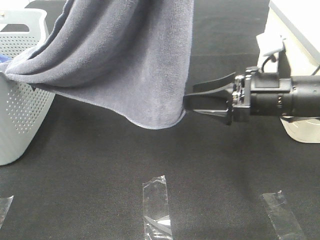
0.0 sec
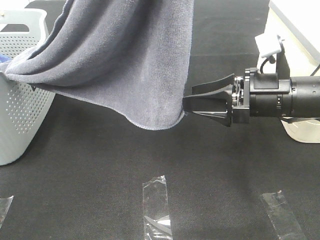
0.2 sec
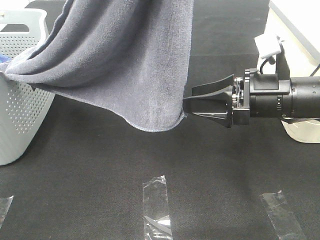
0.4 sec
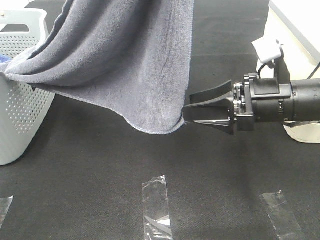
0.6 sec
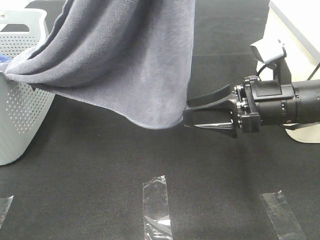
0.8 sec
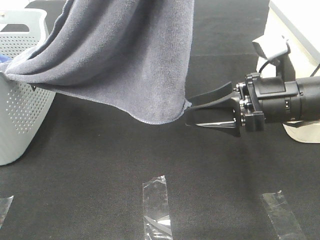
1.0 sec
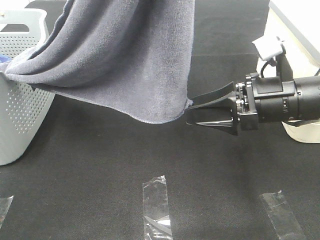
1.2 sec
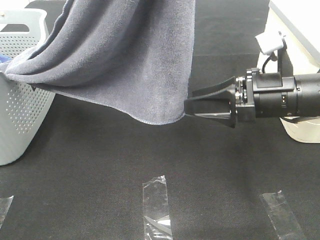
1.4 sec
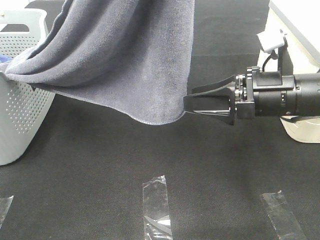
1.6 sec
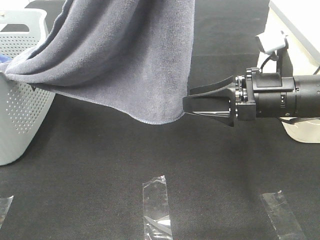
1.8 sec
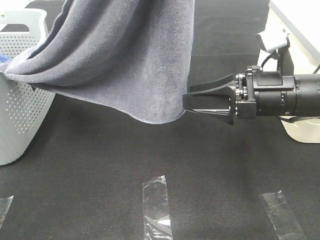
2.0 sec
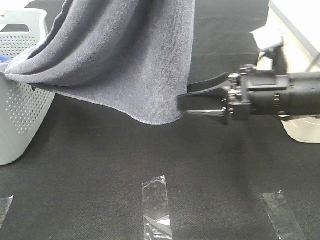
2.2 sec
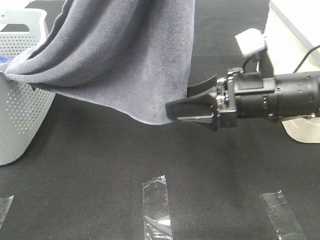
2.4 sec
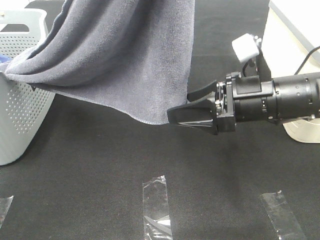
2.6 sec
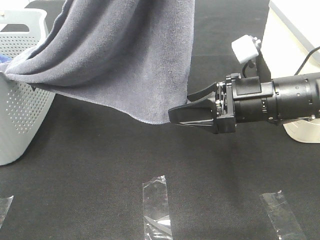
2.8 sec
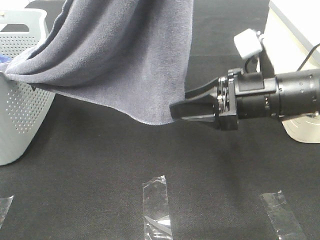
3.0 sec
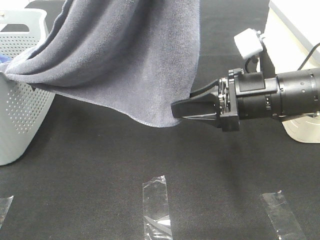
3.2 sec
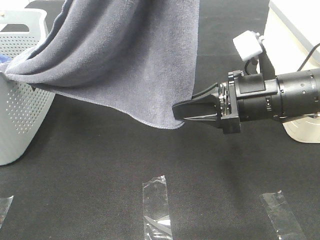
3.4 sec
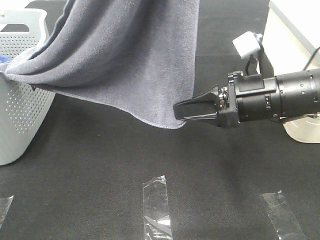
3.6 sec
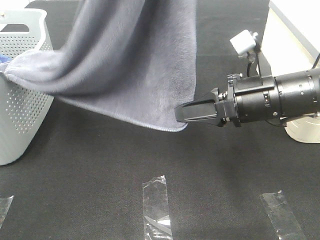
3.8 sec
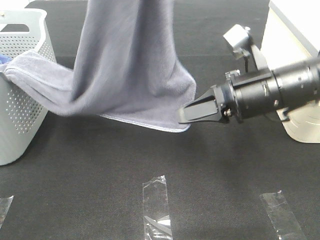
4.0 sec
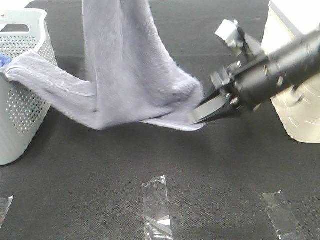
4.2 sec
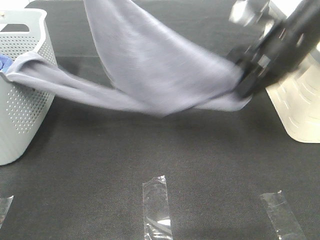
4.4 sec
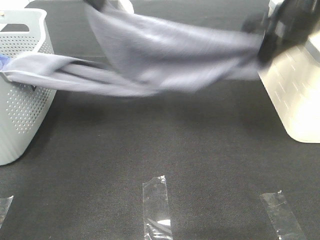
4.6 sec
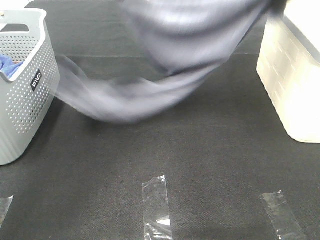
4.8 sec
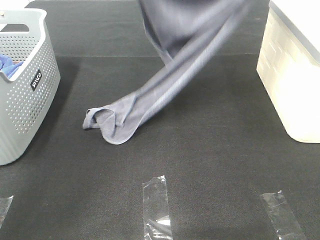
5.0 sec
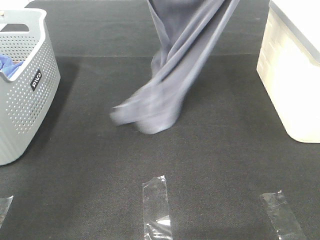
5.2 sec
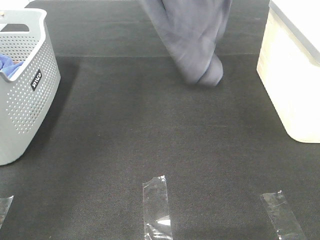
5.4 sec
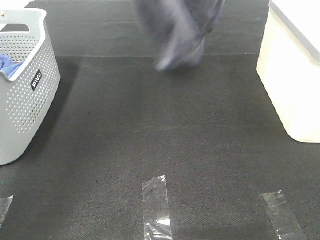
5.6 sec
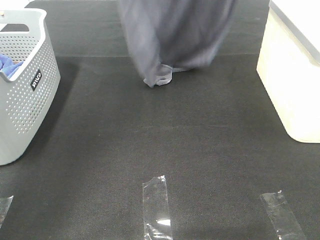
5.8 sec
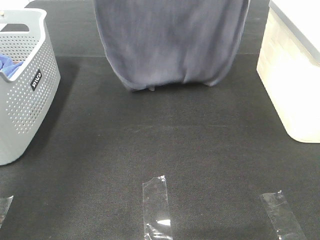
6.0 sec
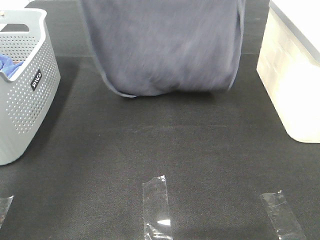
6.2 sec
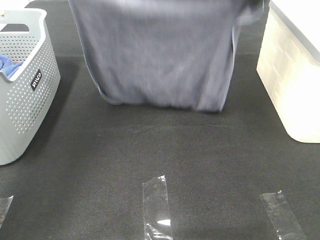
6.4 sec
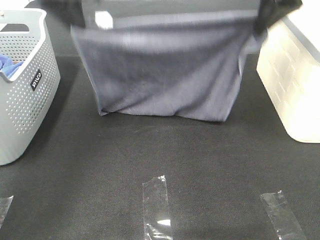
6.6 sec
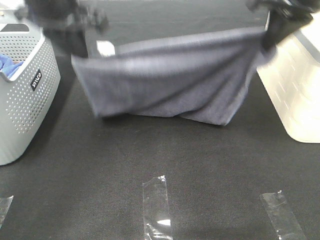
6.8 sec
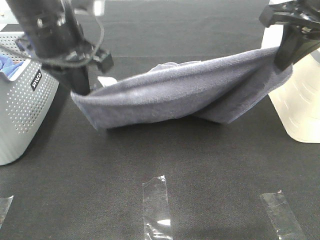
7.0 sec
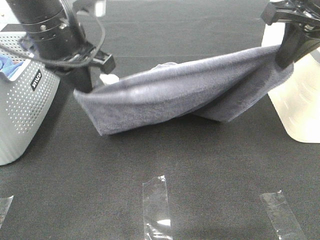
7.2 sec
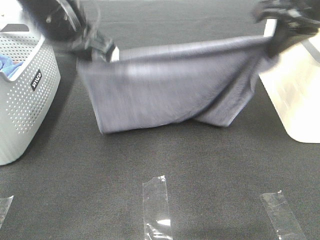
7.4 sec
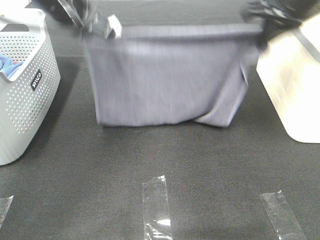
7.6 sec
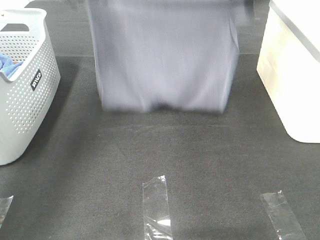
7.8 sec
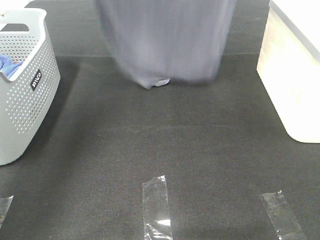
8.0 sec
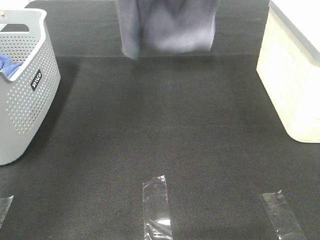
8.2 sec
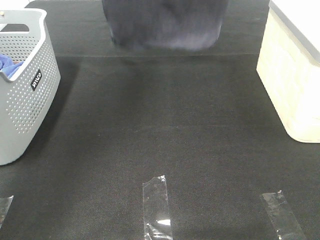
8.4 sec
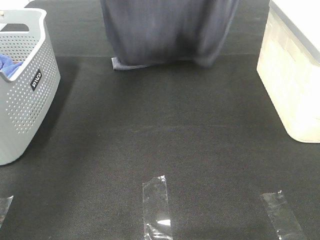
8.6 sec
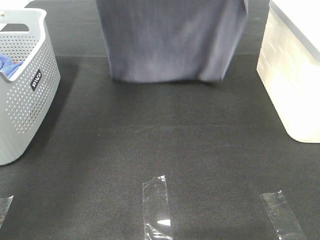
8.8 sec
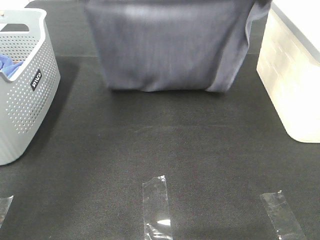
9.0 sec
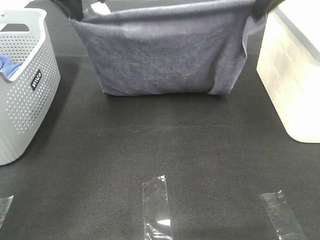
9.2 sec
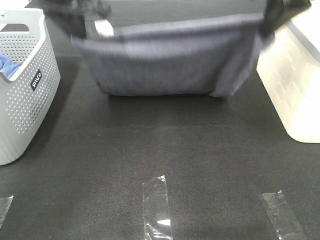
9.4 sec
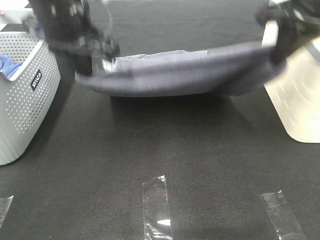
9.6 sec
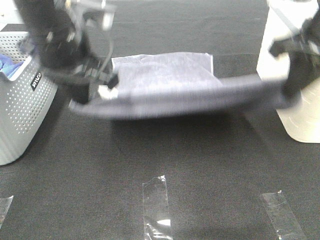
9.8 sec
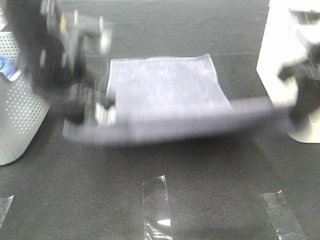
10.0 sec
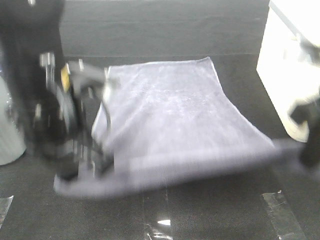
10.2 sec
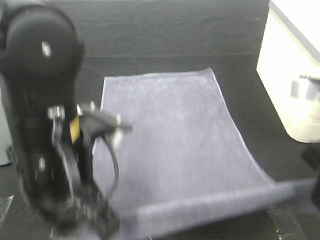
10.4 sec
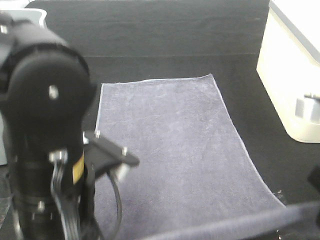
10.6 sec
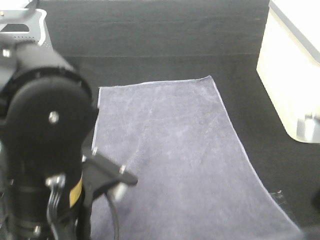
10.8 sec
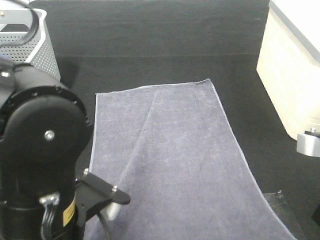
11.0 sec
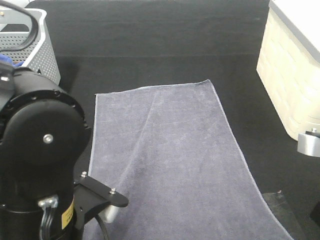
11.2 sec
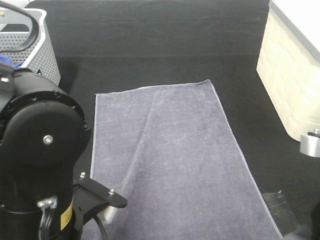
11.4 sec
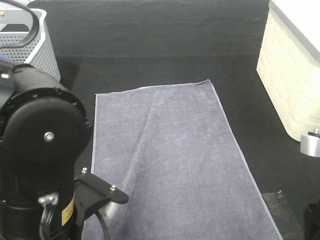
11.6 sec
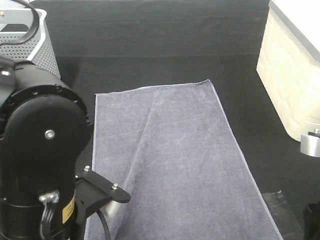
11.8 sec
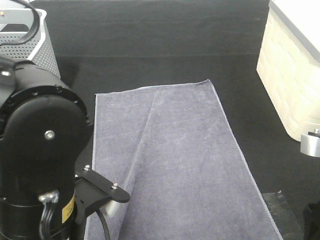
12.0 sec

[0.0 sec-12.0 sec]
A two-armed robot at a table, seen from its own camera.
Task of the whole recording: Remove the towel and place it.
Step, 0.0 sec to 2.2 sec: Right hand: grab a corner of the grey towel and straighten it.
Step, 2.4 sec to 7.0 sec: Left hand: spread the grey towel flat on the table.
Step, 2.4 sec to 7.0 sec: Right hand: spread the grey towel flat on the table.
0.0 sec to 3.0 sec: The grippers move only a little.
3.0 sec to 4.4 sec: The left gripper heads downward and forward, covering about 15 cm, while the right gripper moves upward and forward, about 10 cm, and closes.
4.4 sec to 6.0 sec: The right gripper moves upward, roughly 15 cm. The left gripper travels forward by roughly 5 cm, and goes upward and returns, about 15 cm each way.
6.0 sec to 7.6 sec: Both grippers move downward, approximately 15 cm.
7.6 sec to 9.0 sec: The left gripper moves about 25 cm upward and comes back; the right gripper travels upward and back again, approximately 25 cm each way.
9.0 sec to 10.4 sec: The grippers both shift backward and downward by some 25 cm.
10.4 sec to 12.0 sec: The right gripper moves some 5 cm, and opens. Meanwhile the left gripper shifts approximately 5 cm backward, and opens its fingers.

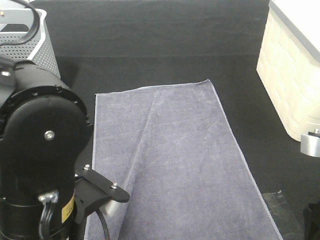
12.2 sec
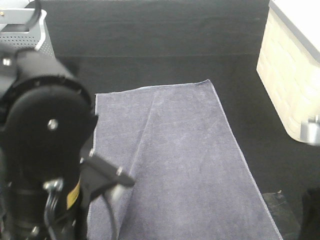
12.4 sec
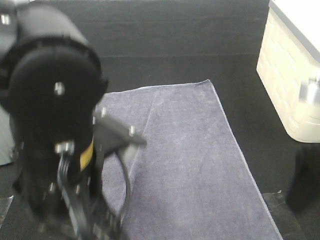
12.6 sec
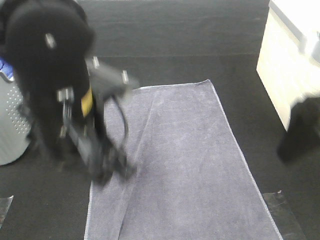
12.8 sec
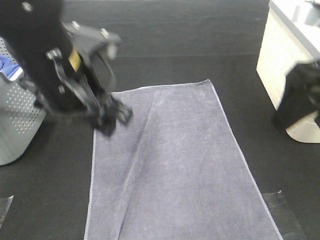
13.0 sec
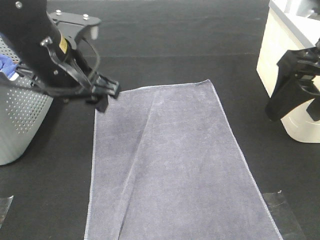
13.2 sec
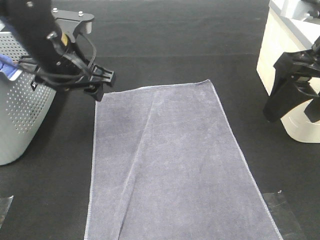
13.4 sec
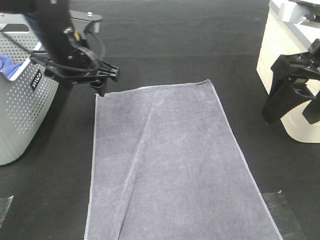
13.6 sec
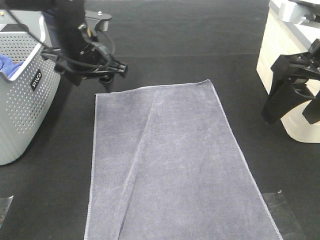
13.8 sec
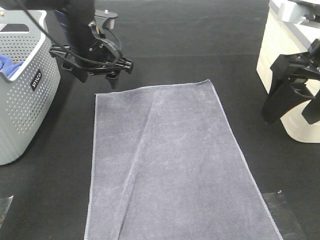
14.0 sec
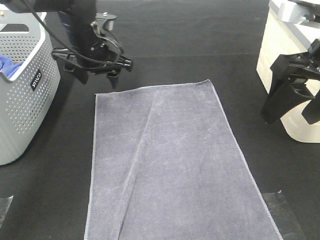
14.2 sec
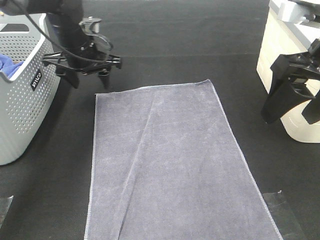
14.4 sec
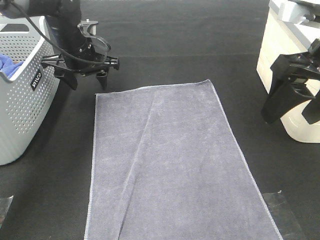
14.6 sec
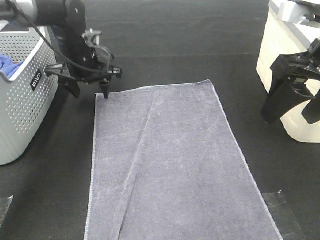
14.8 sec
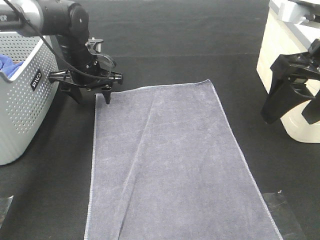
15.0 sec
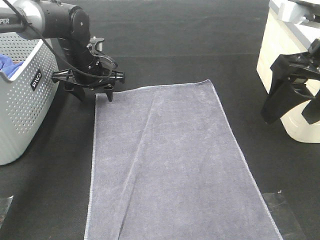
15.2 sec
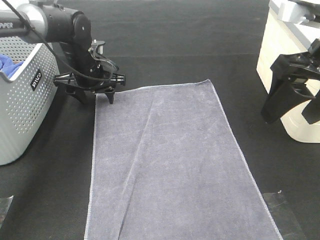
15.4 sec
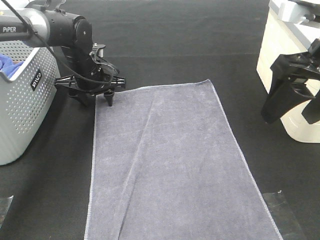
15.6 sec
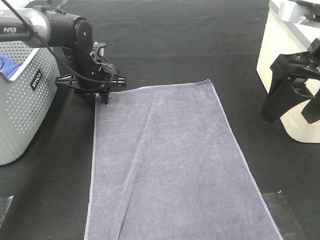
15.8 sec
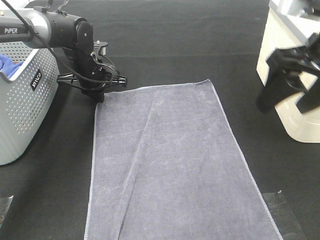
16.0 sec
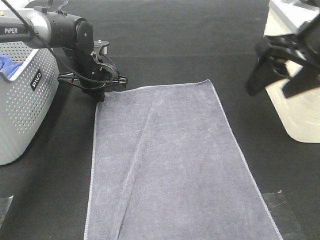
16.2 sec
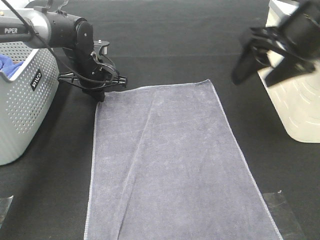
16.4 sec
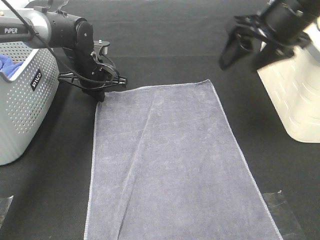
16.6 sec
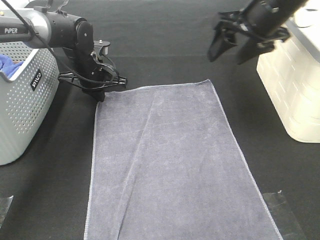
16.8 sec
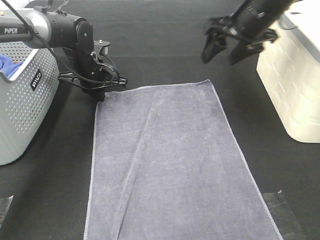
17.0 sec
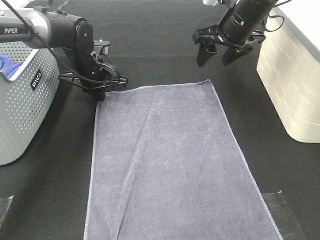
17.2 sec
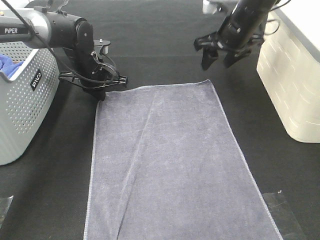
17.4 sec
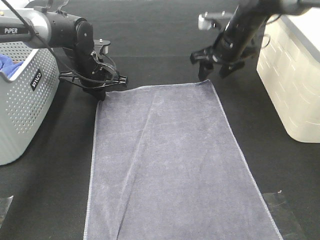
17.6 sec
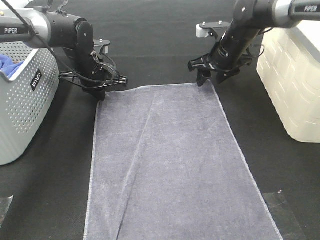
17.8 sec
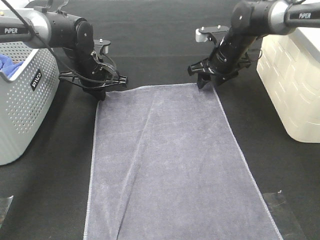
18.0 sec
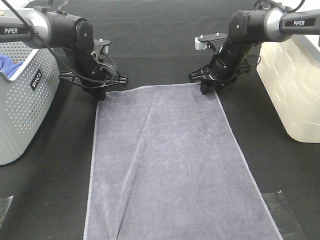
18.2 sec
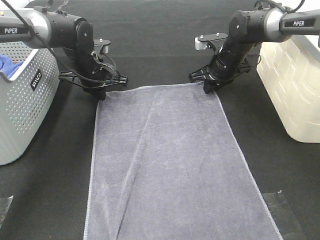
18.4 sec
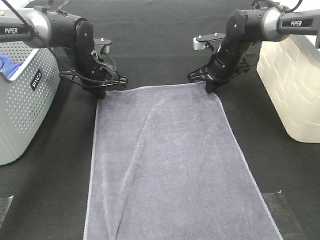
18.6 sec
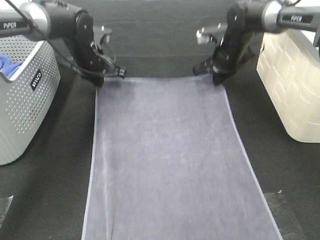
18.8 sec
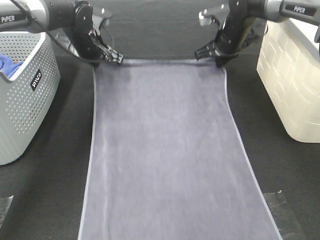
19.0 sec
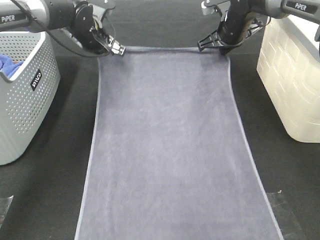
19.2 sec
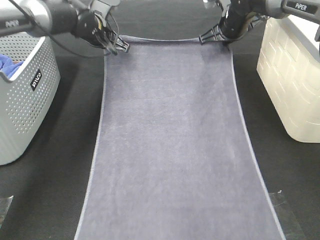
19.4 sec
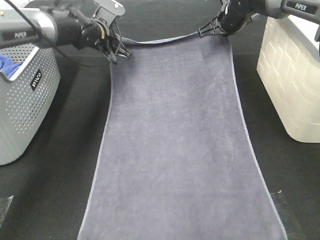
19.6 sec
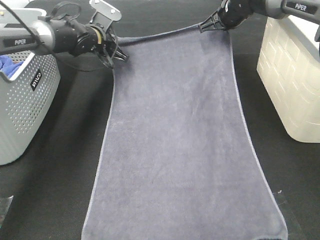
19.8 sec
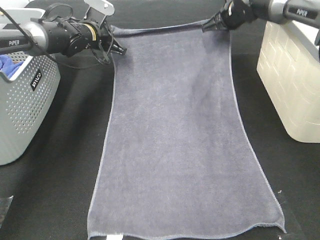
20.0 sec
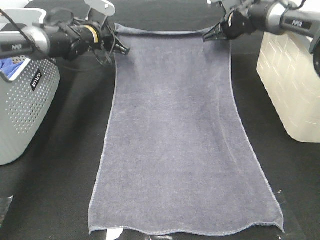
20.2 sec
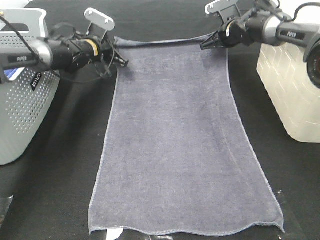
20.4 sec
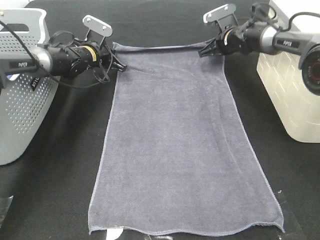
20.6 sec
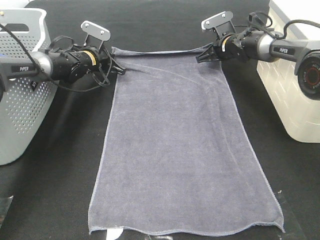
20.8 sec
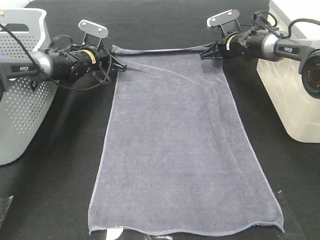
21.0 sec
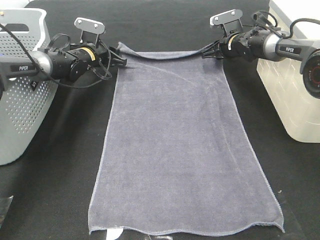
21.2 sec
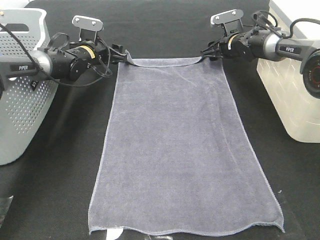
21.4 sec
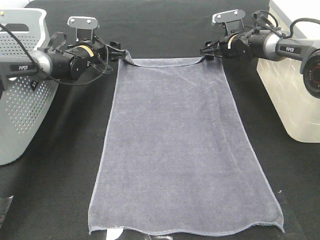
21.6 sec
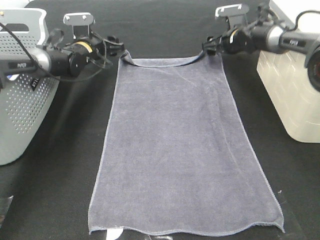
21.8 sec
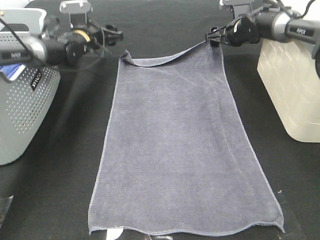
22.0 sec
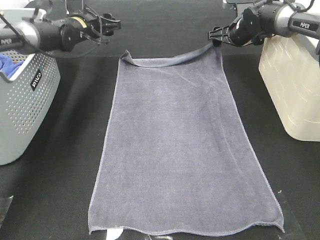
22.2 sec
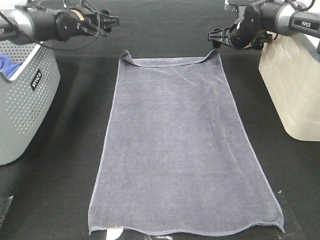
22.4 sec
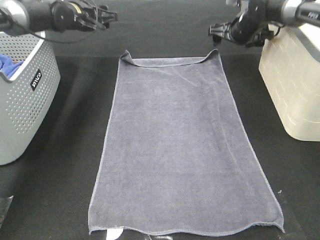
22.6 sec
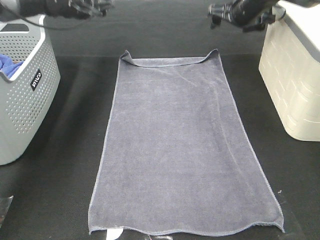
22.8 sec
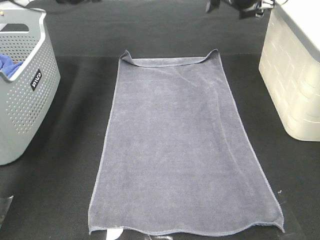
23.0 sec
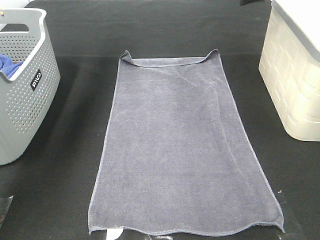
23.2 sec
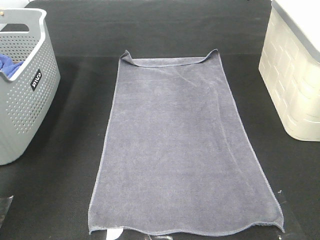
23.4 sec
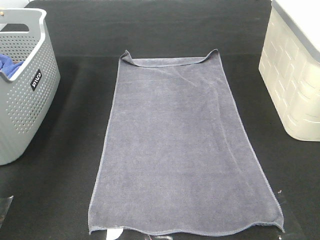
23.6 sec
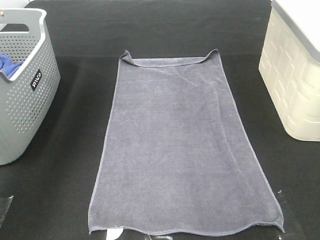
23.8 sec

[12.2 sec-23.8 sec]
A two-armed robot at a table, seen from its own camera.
Task of the whole recording: Remove the towel and place it.
Step, 12.2 sec to 15.4 sec: Left hand:adjust the gray towel.
Step, 12.2 sec to 15.4 sec: Right hand:adjust the gray towel.
12.2 sec to 13.6 sec: The left gripper is displaced forward by roughly 25 cm. Meanwhile the right gripper is displaced forward and upward by about 15 cm.
13.6 sec to 15.0 sec: The left gripper travels forward and downward by approximately 10 cm.
15.0 sec to 16.6 sec: The left gripper closes; the right gripper goes roughly 10 cm forward.
16.6 sec to 18.0 sec: The right gripper travels downward and forward by roughly 20 cm.
18.0 sec to 19.4 sec: The left gripper goes some 10 cm upward and forward. Meanwhile the right gripper shifts approximately 5 cm upward, and closes up.
19.4 sec to 21.0 sec: Both grippers travel together downward, approximately 10 cm.
21.0 sec to 22.4 sec: The right gripper moves upward, roughly 5 cm, and opens up; the left gripper goes some 10 cm upward, and opens.
22.4 sec to 23.8 sec: Both grippers travel together upward and backward, about 30 cm.
